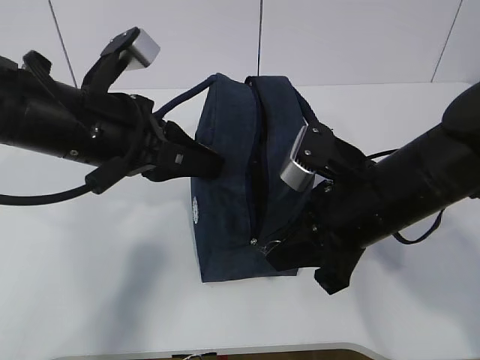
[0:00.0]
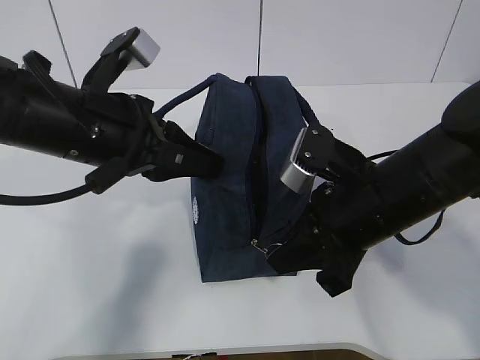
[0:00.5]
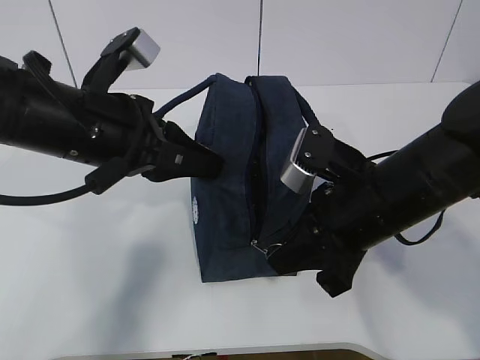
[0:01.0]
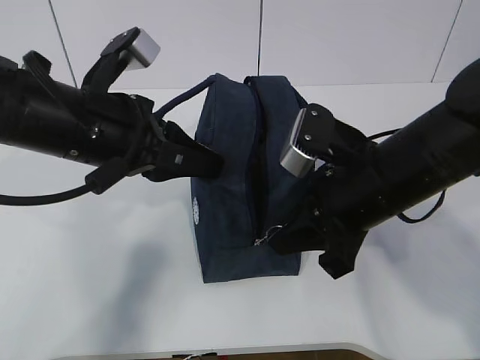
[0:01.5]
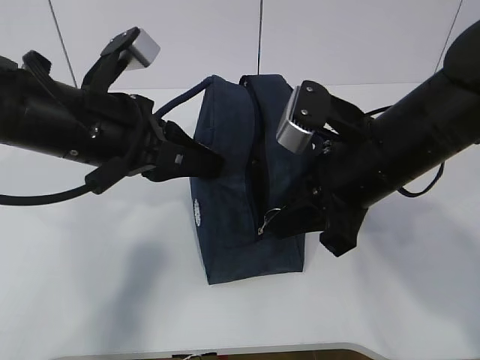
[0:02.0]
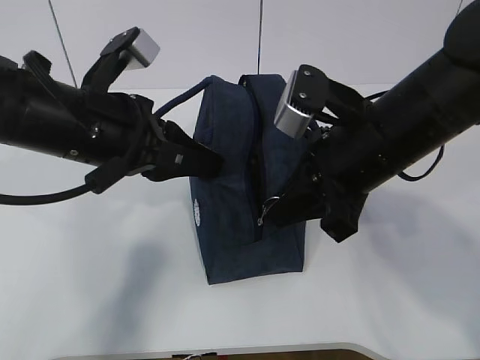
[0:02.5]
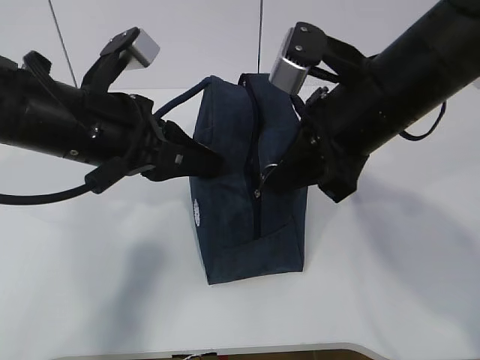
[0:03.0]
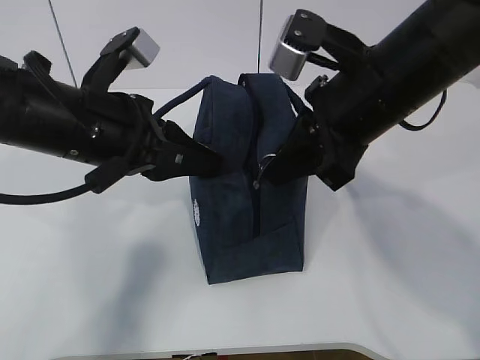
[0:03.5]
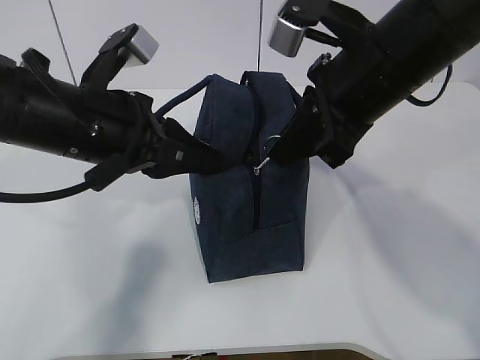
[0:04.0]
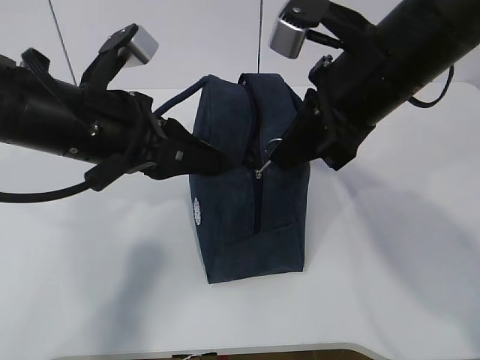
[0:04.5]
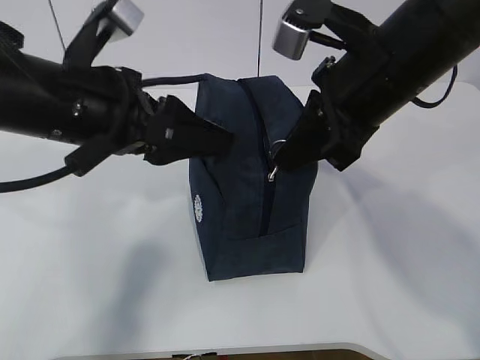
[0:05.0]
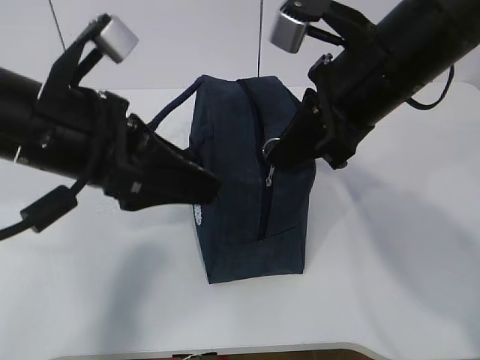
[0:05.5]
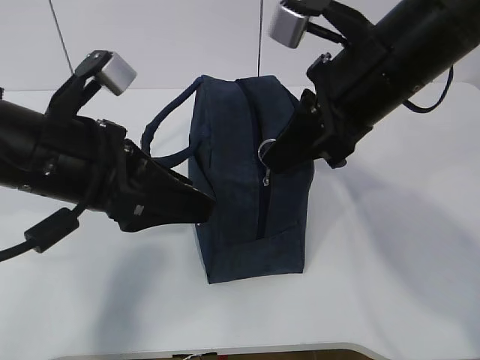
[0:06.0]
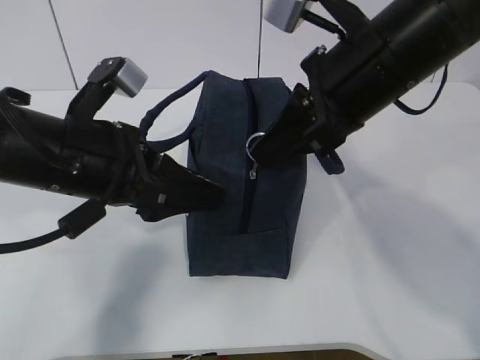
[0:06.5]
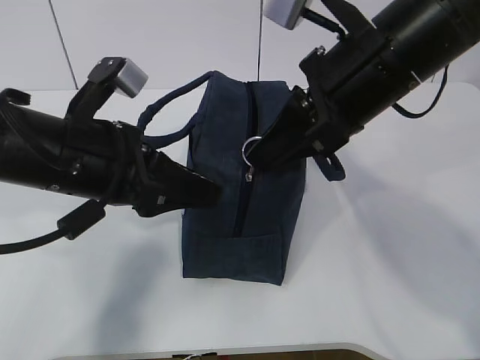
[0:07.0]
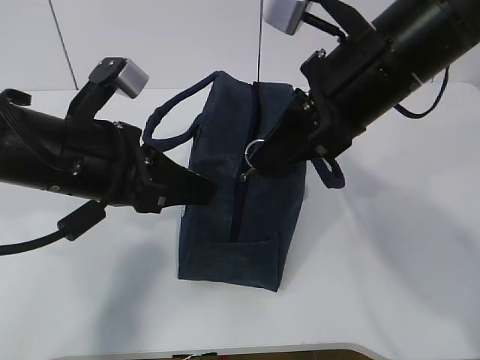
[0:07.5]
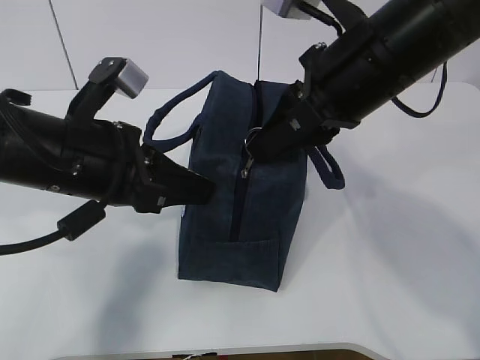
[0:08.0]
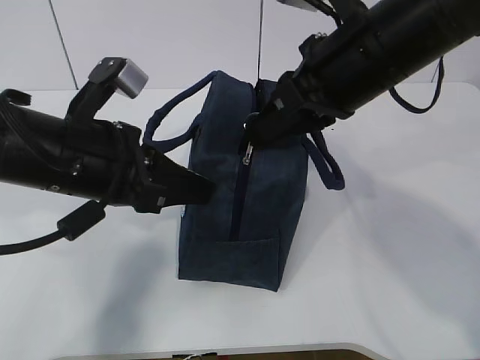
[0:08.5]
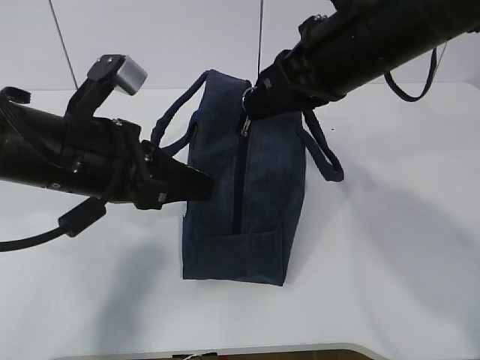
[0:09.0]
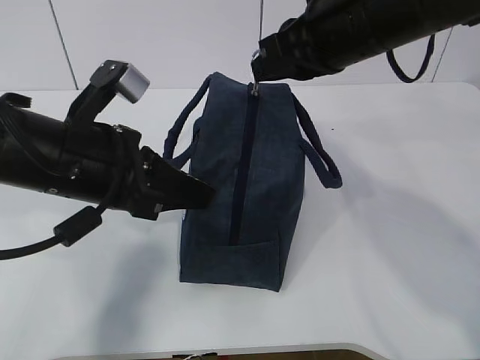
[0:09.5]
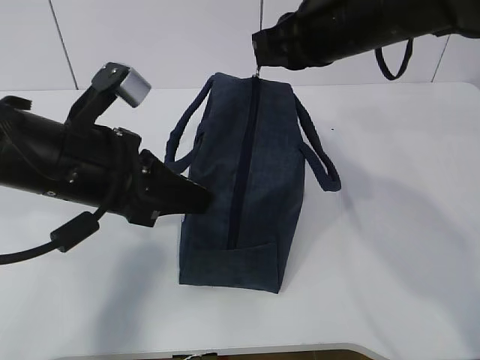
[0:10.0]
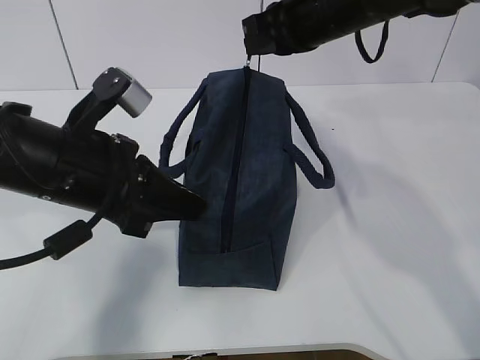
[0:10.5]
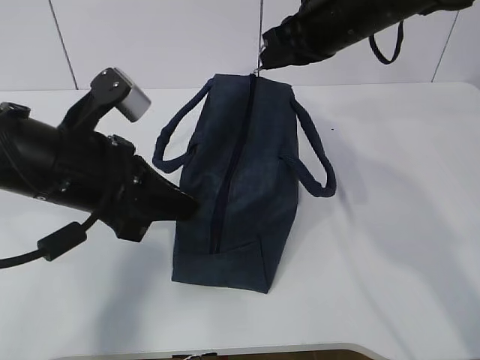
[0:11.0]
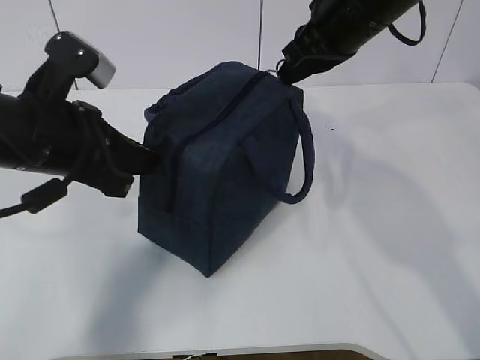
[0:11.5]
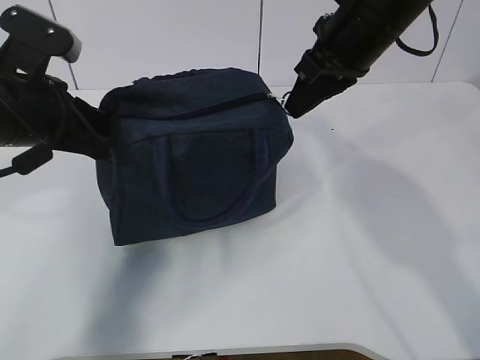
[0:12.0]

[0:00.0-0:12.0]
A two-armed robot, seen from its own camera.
Step, 0:01.0 to 0:07.5: Pull the zipper with your right hand.
0:00.0 to 0:02.0: The grippers make only small movements.
0:02.0 to 0:04.0: The right gripper travels upward by about 5 cm.
0:04.0 to 0:06.0: The left gripper opens its fingers.
0:06.0 to 0:08.0: The left gripper closes.
0:08.0 to 0:10.0: The right gripper is displaced forward by some 5 cm.
0:10.0 to 0:12.0: The left gripper moves to the left, some 5 cm.

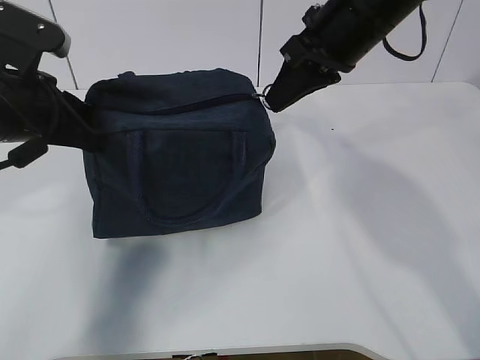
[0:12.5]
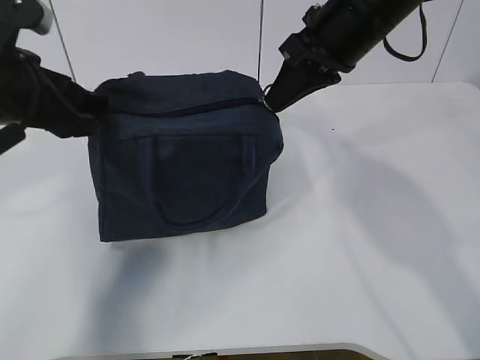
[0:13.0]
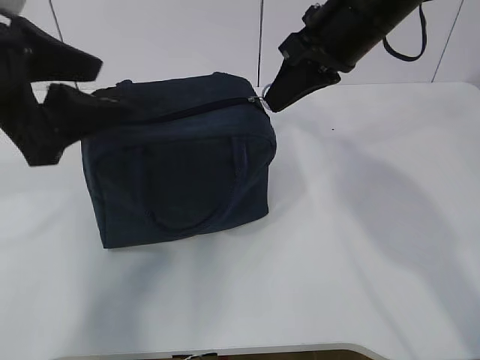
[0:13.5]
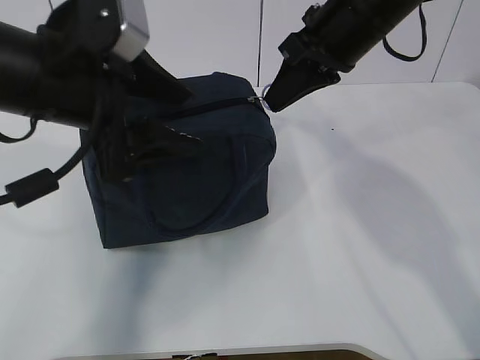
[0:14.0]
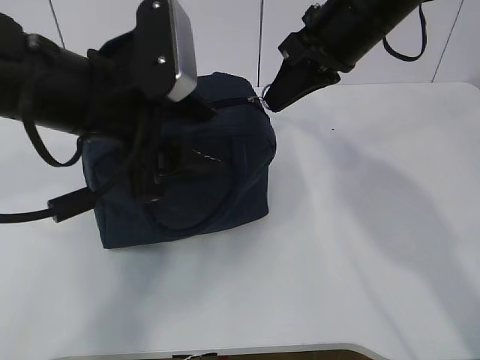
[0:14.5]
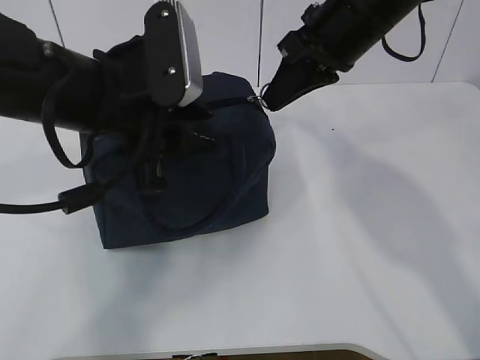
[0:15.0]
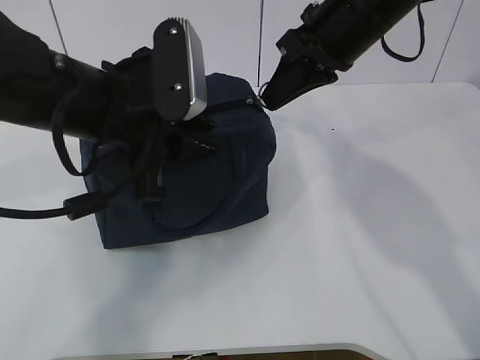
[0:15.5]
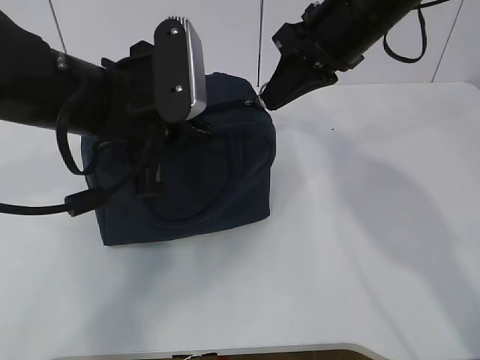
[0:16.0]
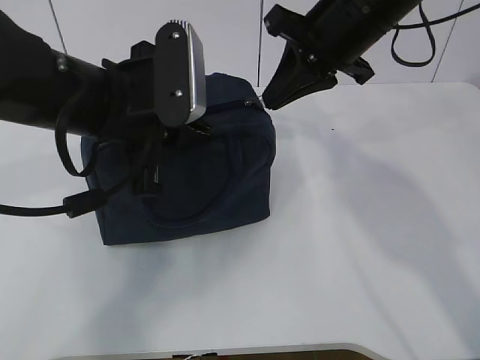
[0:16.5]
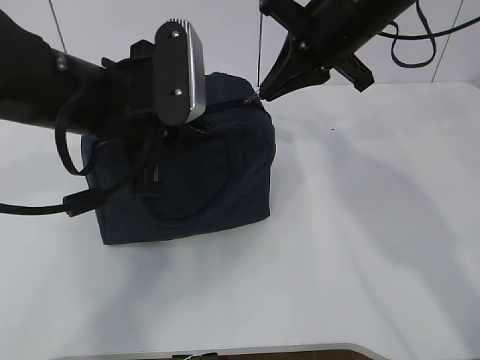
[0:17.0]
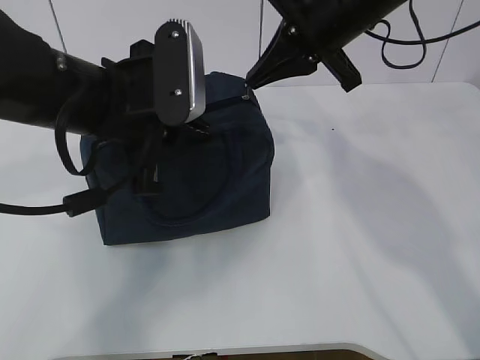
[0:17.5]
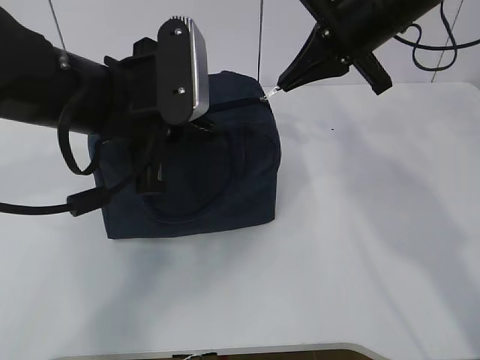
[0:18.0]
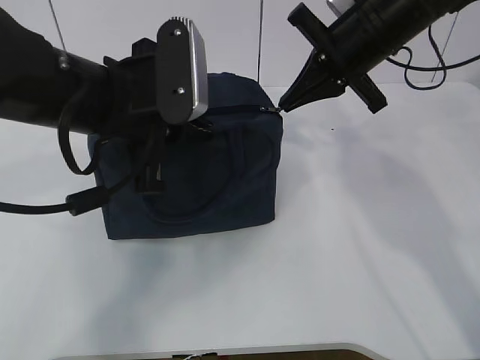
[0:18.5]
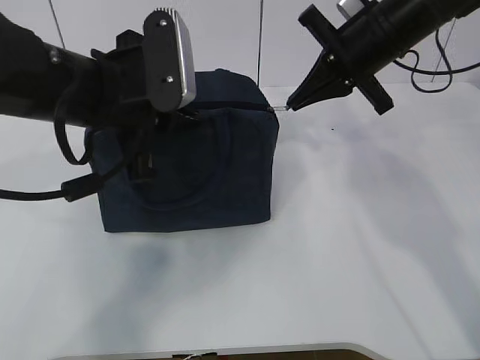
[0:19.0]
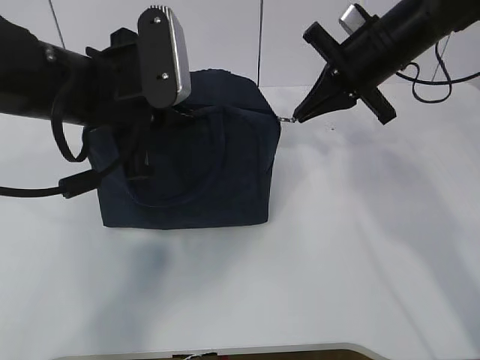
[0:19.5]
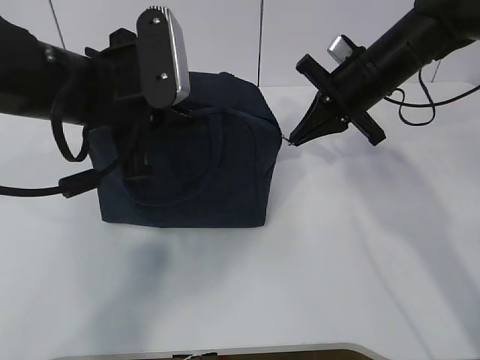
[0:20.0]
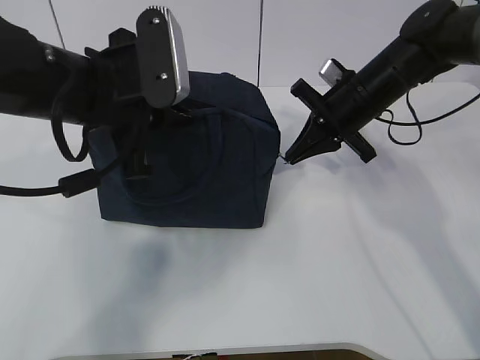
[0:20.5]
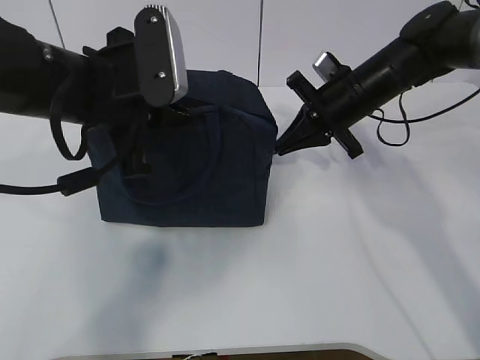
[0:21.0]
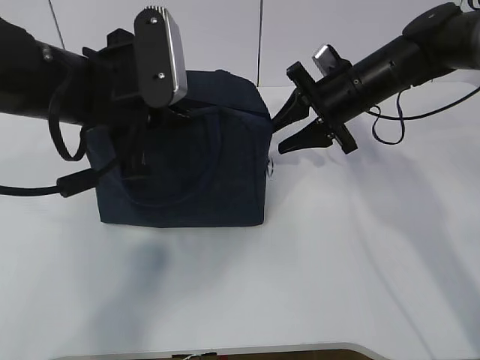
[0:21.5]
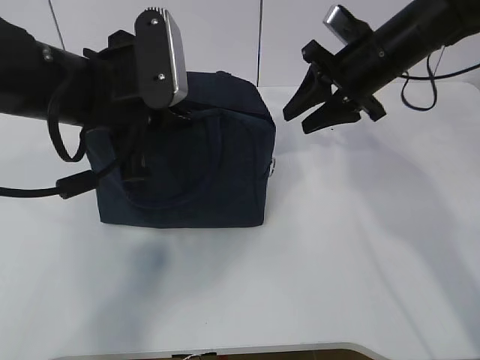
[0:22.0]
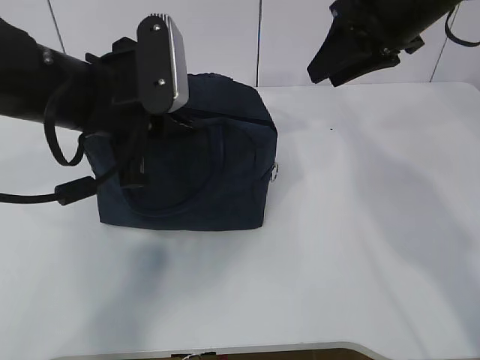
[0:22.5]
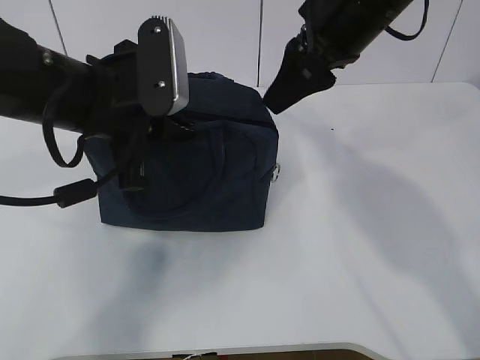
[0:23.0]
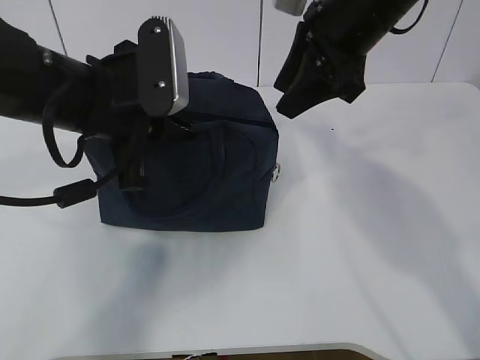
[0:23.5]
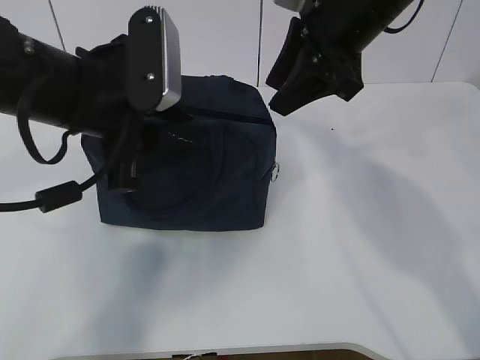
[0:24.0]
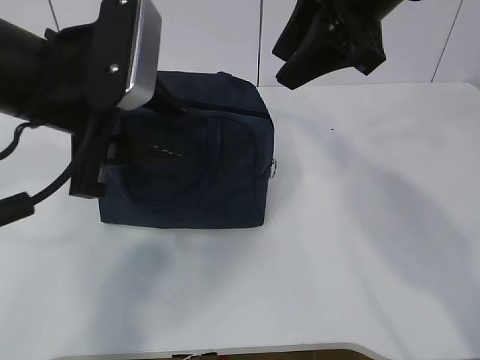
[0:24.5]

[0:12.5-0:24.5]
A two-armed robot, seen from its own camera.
0:12.5 to 0:14.5: The left gripper heads to the right, covering about 10 cm, and opens its fingers.
0:14.5 to 0:16.5: The left gripper closes.
0:16.5 to 0:18.5: The right gripper changes place by roughly 5 cm.
0:18.5 to 0:20.5: The right gripper is displaced downward by some 10 cm.
0:20.5 to 0:22.5: The right gripper travels upward by some 15 cm, and opens its fingers.
0:22.5 to 0:24.5: The left gripper ends up roughly 5 cm from where it was, and opens its fingers, while the right gripper is displaced to the left by roughly 5 cm.

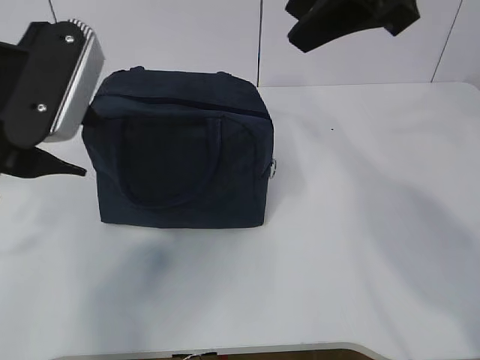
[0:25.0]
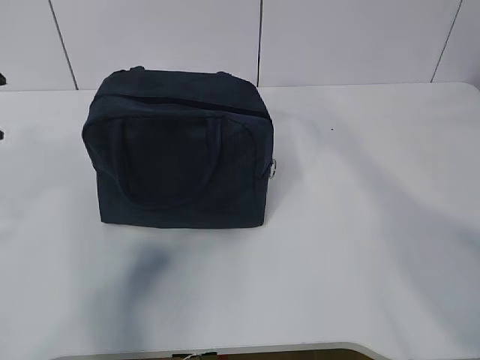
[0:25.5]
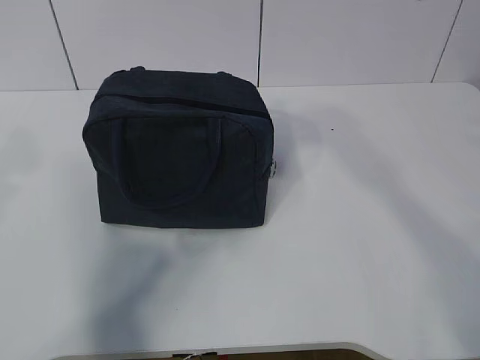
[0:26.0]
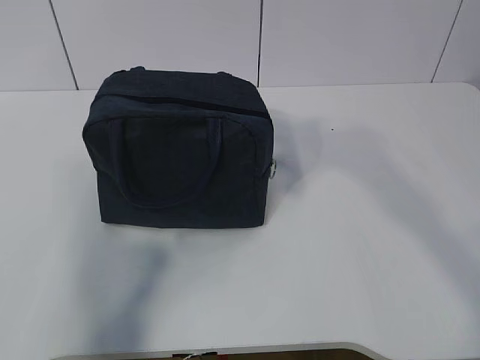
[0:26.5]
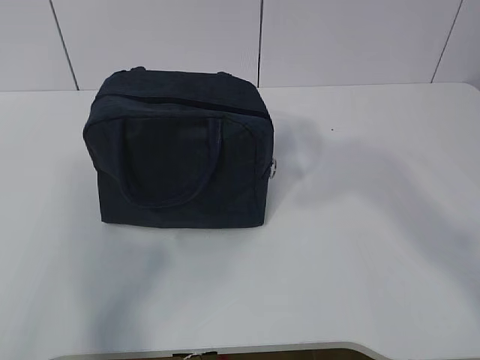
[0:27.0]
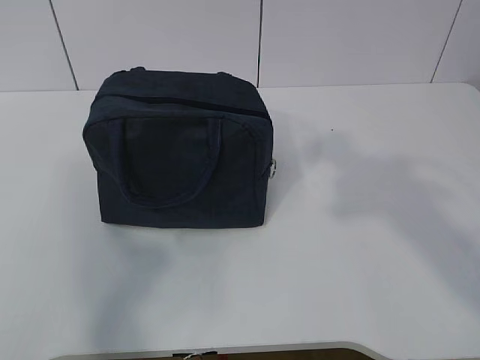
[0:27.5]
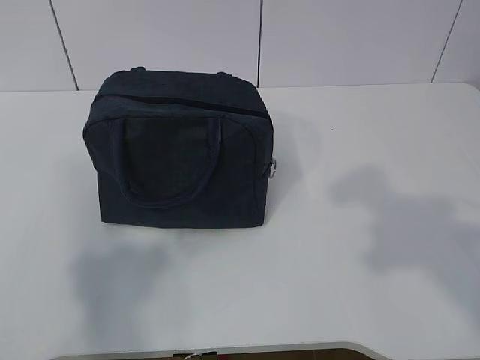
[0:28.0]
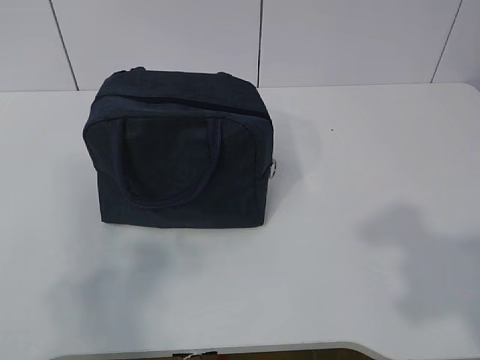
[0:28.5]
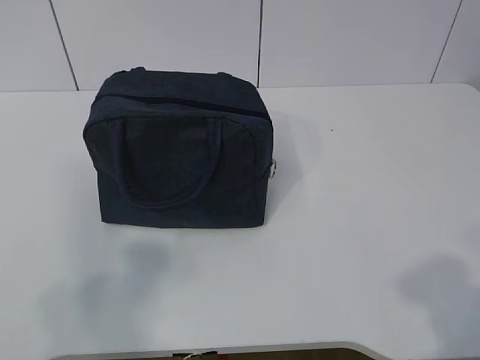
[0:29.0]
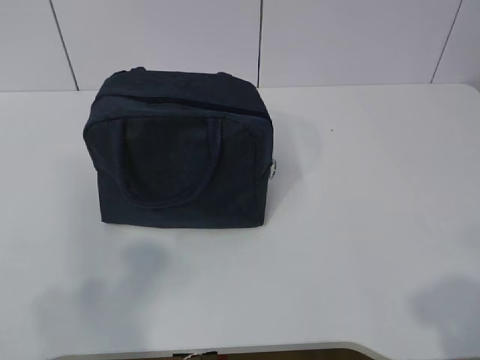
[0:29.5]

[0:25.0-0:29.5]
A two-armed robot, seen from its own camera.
0:25.0 to 0:27.0: The left gripper moves backward, to the left and upward, roughly 25 cm, while the right gripper heads backward and to the right, covering approximately 20 cm.
